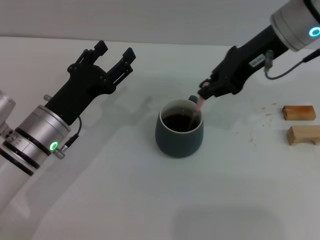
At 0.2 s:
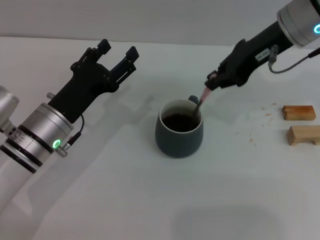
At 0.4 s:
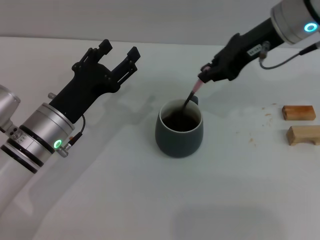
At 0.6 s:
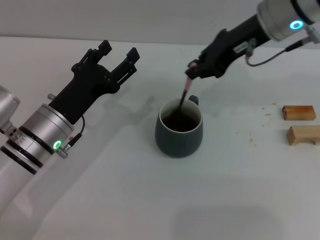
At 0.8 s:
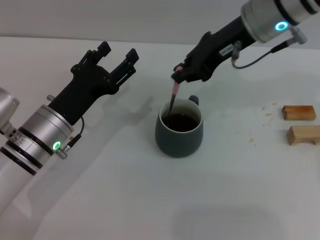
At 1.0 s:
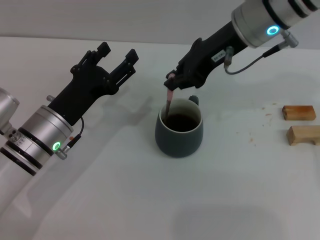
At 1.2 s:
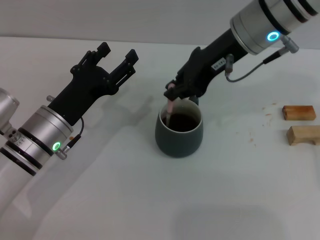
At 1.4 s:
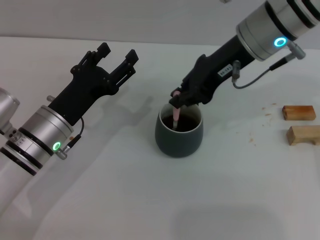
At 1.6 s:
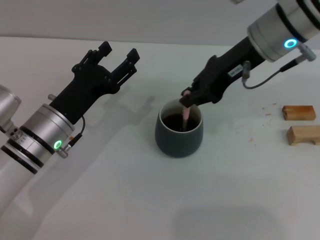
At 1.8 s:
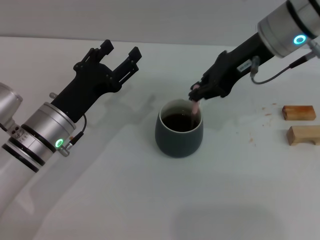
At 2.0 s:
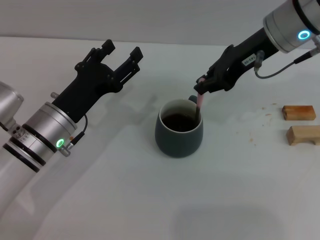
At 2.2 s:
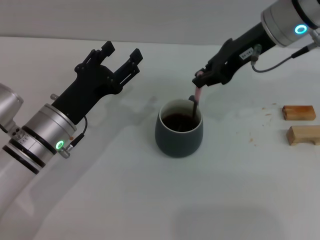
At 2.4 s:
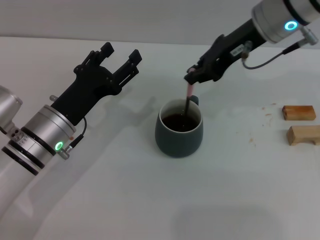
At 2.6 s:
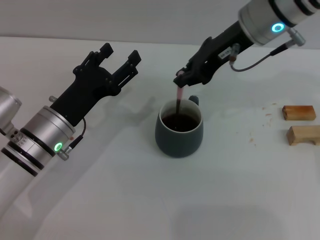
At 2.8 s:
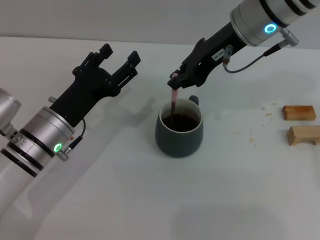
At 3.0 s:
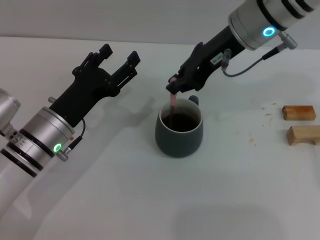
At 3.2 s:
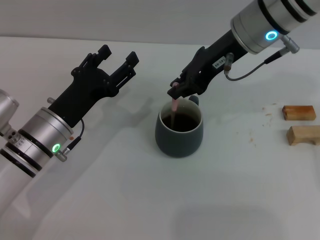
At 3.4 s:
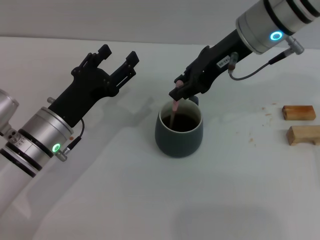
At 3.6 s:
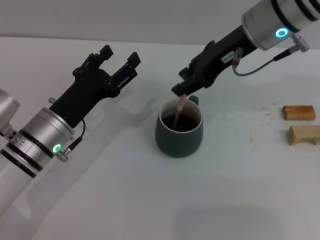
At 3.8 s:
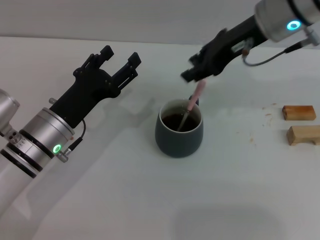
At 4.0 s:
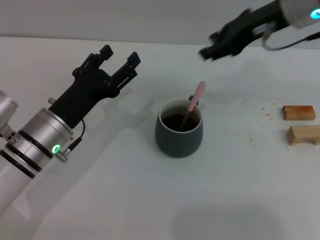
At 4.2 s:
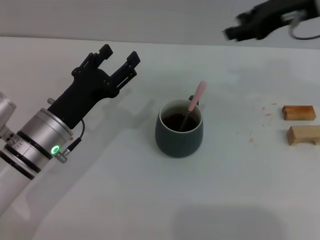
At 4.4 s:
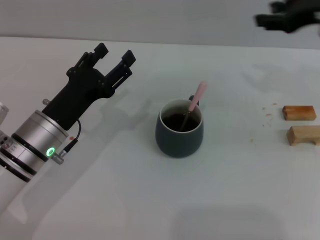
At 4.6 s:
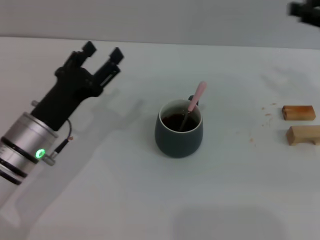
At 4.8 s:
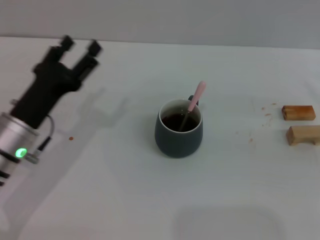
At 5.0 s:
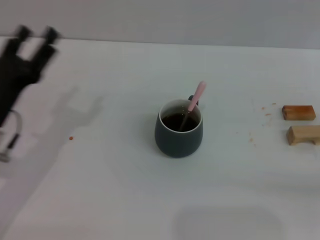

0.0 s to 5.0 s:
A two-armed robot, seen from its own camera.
Task of the whole recording: Move the grey cup to the center, lift the pink spoon, stir it three times in the cup, and put the spoon into the cup.
Step, 0.0 to 3.6 s: Stir the coffee in the cup with the right gripper.
0.0 to 3.4 s: The grippers move only a little.
3.4 to 5.0 s: The right gripper heads to the right and backward, covering approximately 35 cm, and opens; the left gripper changes place by approximately 5 cm.
